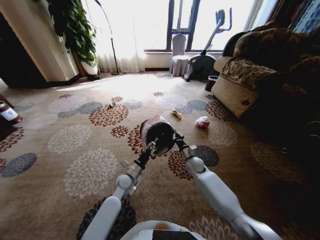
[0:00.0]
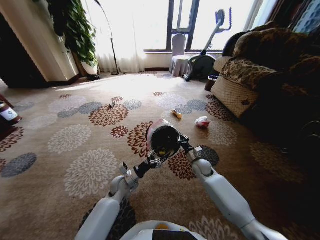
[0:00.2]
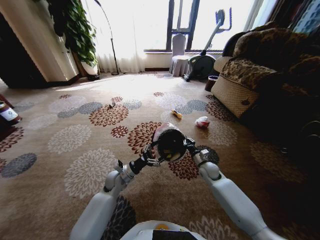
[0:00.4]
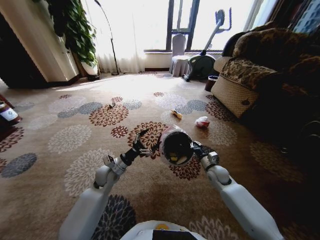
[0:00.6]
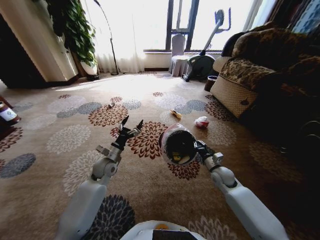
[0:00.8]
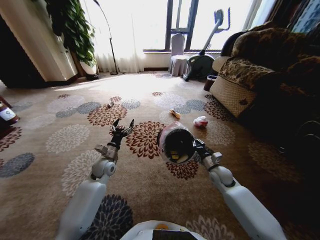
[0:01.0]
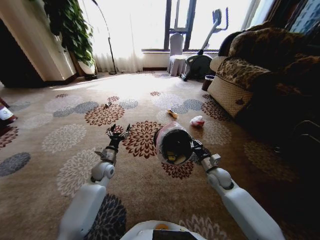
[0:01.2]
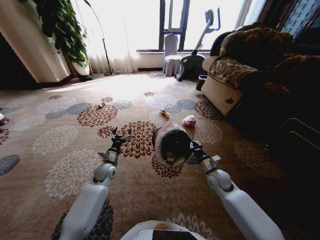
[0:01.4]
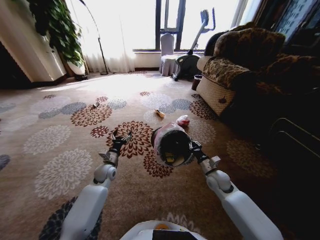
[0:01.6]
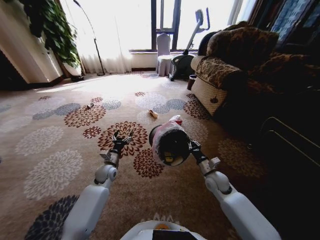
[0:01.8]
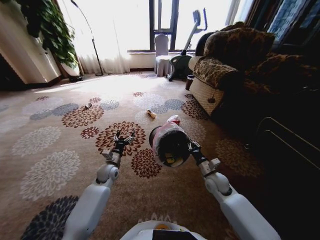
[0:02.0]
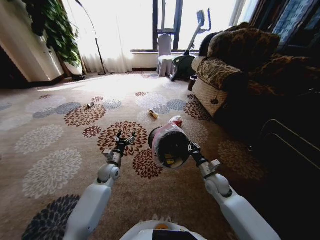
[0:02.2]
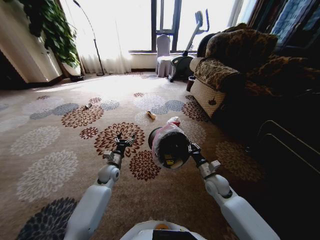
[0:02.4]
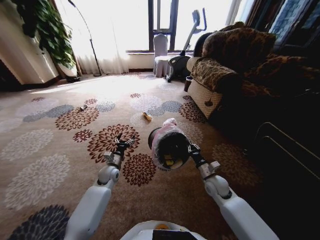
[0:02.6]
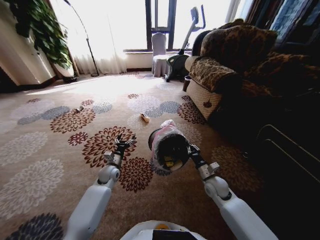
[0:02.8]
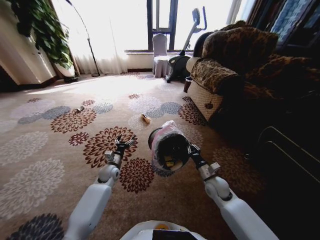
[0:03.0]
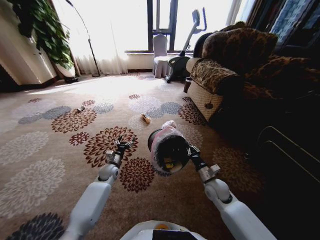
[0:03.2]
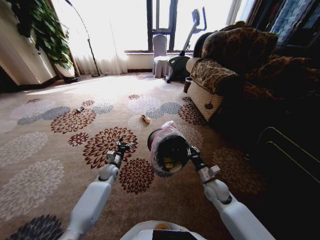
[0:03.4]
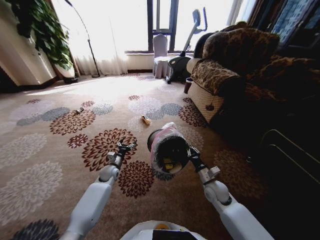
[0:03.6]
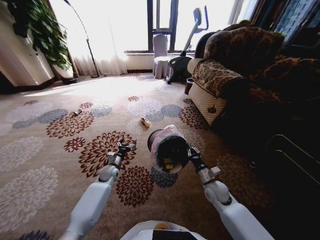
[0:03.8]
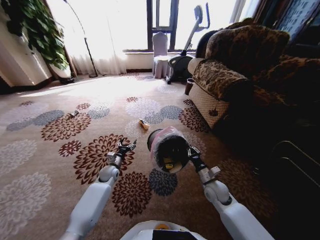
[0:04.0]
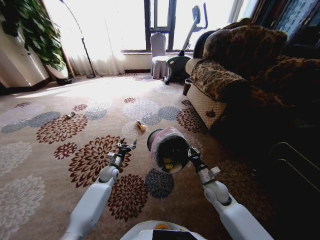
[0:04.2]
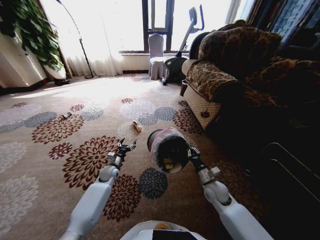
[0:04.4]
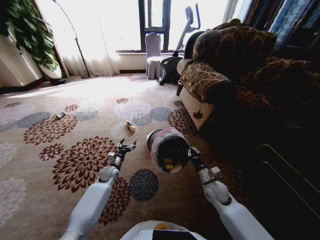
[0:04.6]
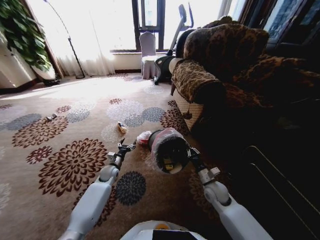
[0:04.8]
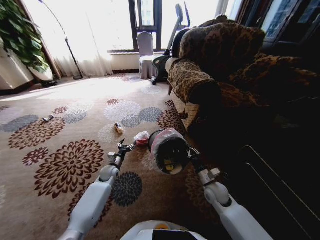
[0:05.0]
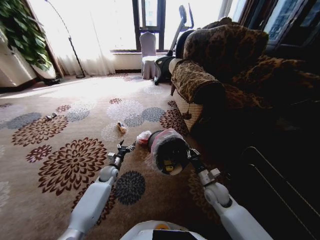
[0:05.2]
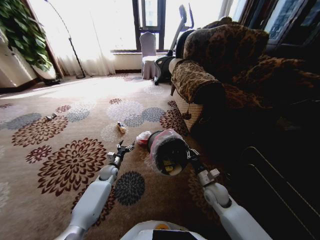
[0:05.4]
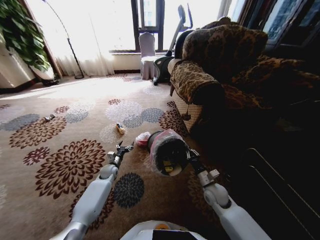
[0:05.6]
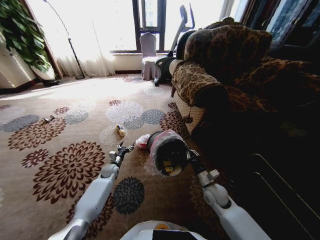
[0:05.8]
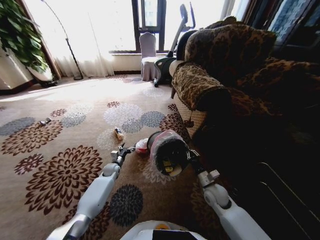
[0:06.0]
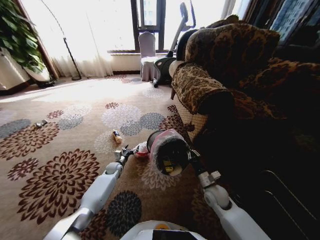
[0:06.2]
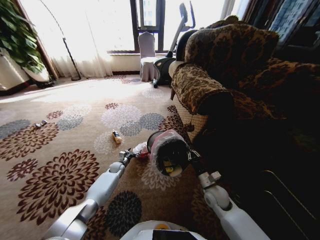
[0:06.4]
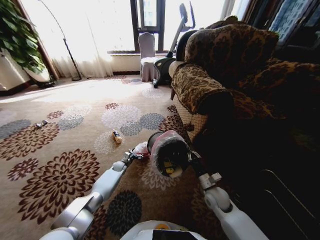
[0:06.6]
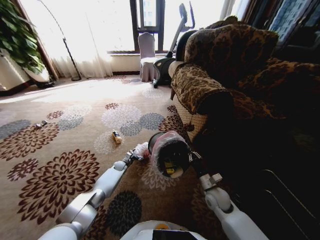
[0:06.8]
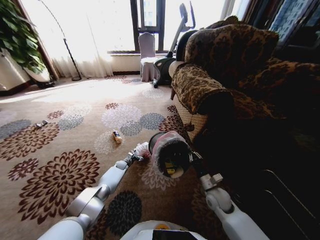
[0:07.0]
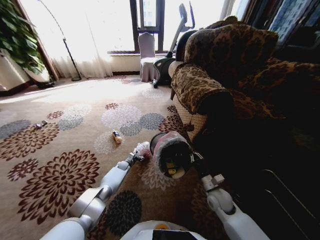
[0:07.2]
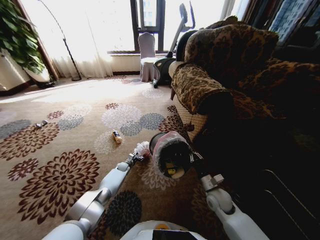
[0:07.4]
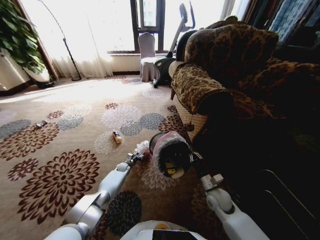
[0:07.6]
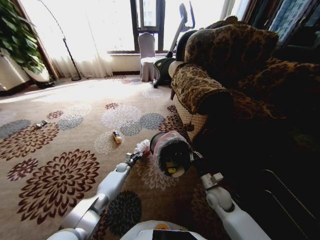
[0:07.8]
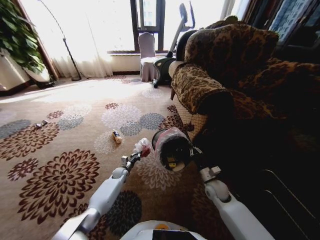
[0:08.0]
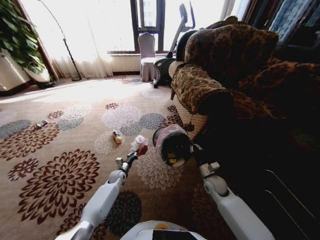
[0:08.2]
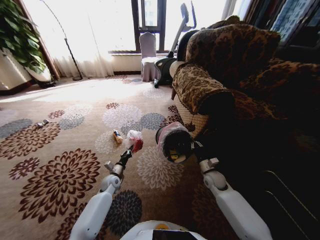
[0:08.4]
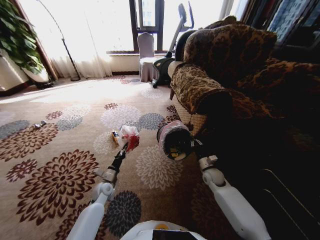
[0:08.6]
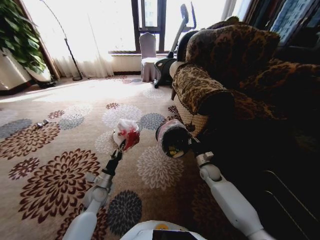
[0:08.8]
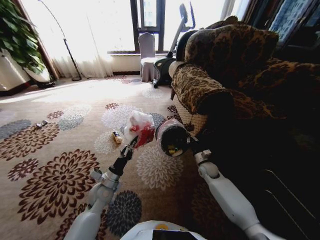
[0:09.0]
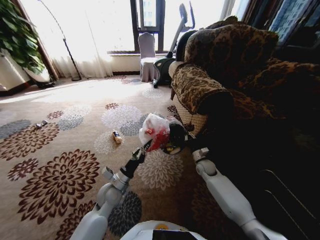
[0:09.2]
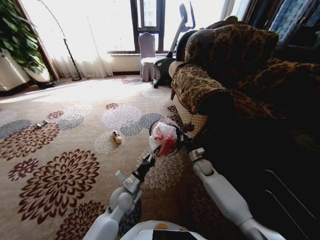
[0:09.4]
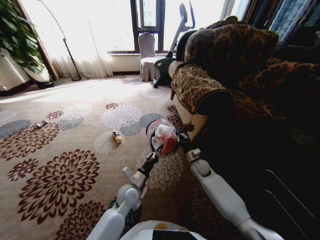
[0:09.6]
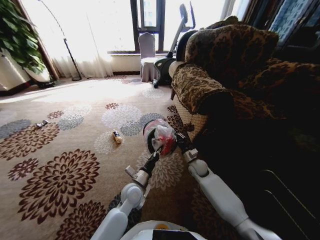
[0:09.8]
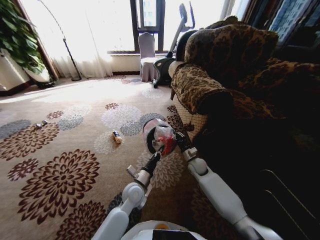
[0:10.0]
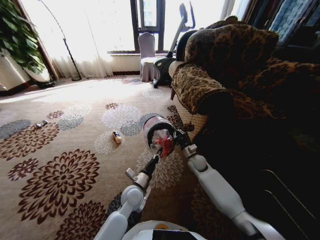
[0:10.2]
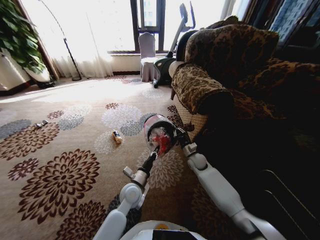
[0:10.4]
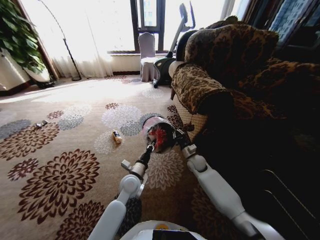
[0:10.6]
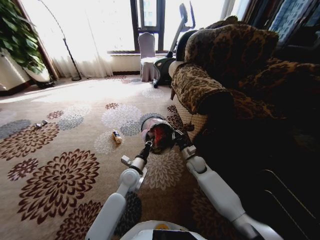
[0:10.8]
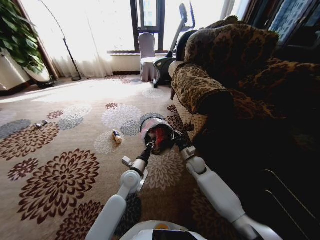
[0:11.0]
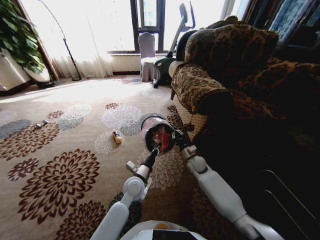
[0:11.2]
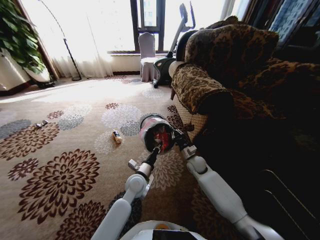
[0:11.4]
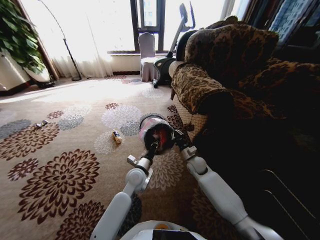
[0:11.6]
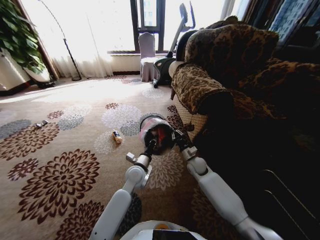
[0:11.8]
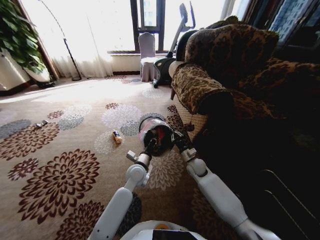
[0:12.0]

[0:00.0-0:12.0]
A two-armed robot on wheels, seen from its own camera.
Task of the whole recording: Pick up the trash from the ground and place it into the trash bin.
0:00.0 to 0:01.6: The left gripper moves to the left, approximately 10 cm, and opens up. The right gripper is displaced backward and to the right by approximately 10 cm.
0:04.4 to 0:06.0: The left gripper shifts by some 5 cm.
0:06.0 to 0:07.6: The left gripper moves downward and forward, some 10 cm, and closes.
0:07.6 to 0:09.0: The left gripper goes approximately 30 cm backward and upward, and closes its fingers; the right gripper goes roughly 15 cm forward.
0:09.0 to 0:10.4: The right gripper shifts roughly 5 cm to the left. Meanwhile the left gripper travels to the right by about 10 cm.
0:10.4 to 0:12.0: The left gripper shifts roughly 10 cm forward.

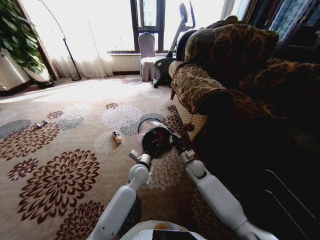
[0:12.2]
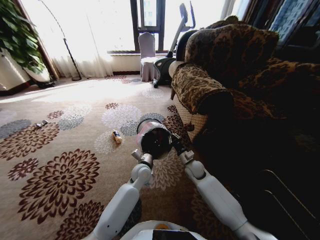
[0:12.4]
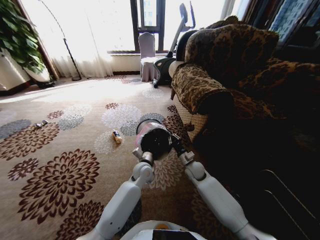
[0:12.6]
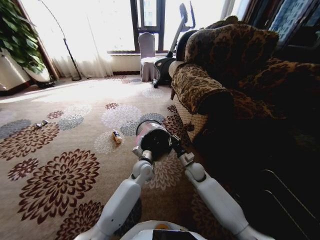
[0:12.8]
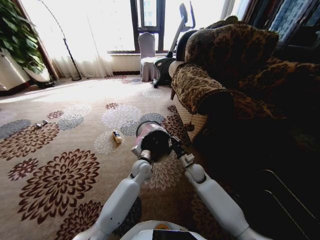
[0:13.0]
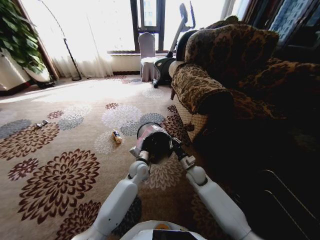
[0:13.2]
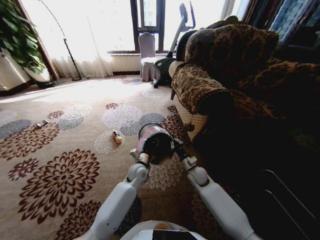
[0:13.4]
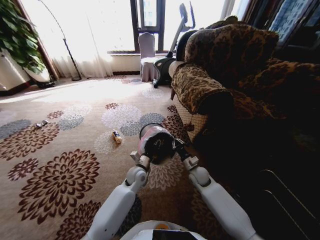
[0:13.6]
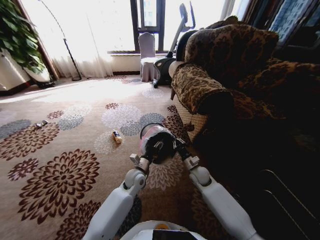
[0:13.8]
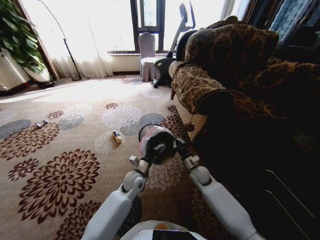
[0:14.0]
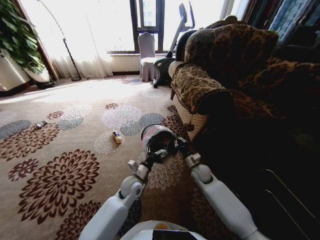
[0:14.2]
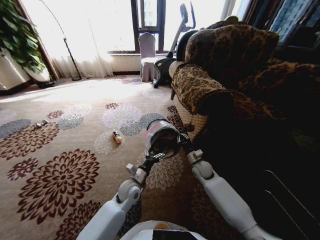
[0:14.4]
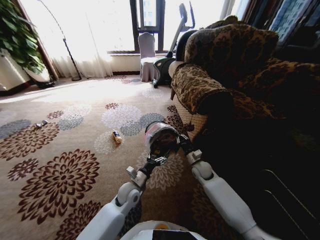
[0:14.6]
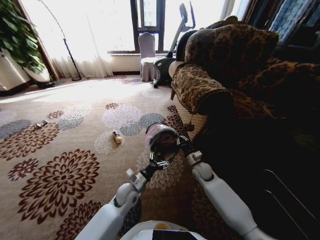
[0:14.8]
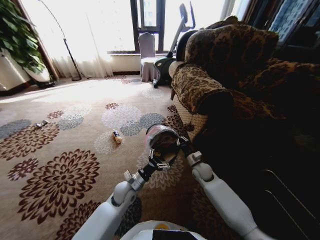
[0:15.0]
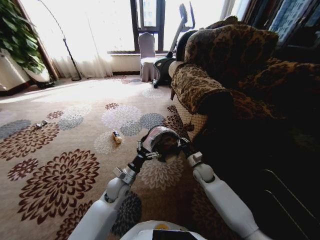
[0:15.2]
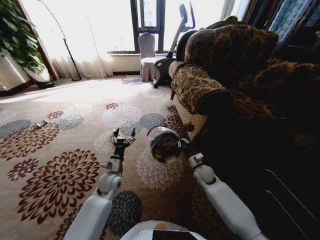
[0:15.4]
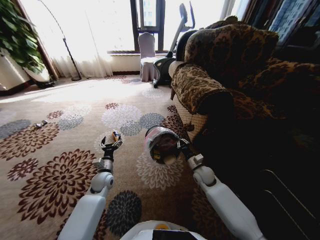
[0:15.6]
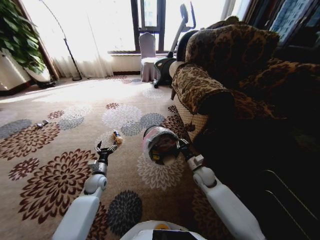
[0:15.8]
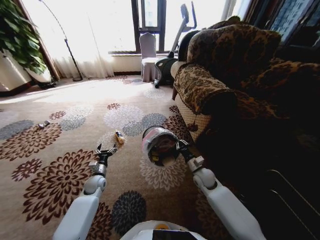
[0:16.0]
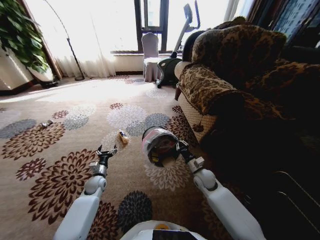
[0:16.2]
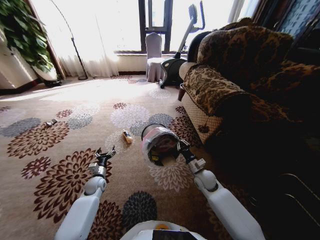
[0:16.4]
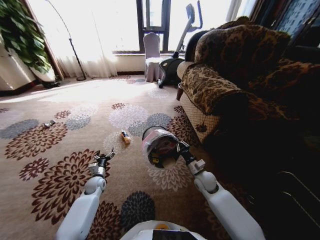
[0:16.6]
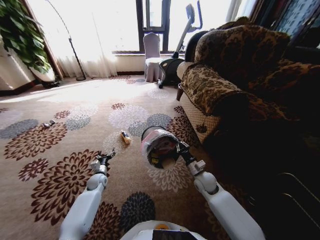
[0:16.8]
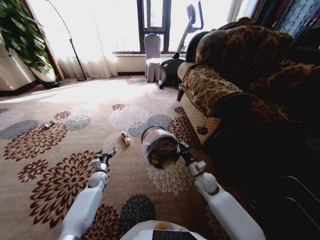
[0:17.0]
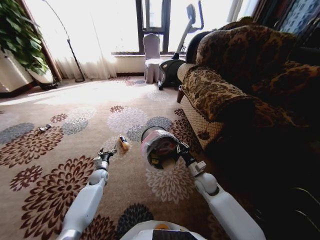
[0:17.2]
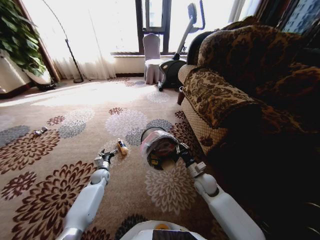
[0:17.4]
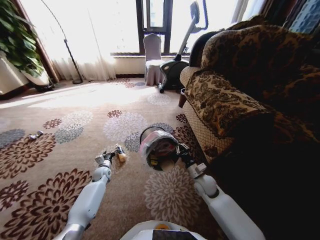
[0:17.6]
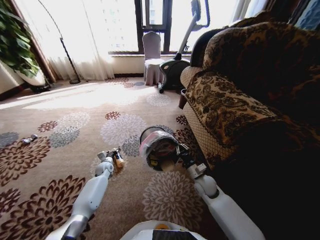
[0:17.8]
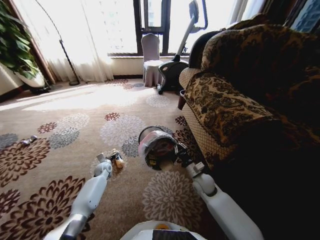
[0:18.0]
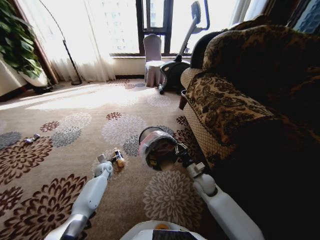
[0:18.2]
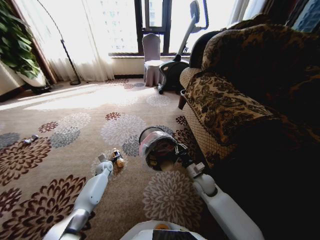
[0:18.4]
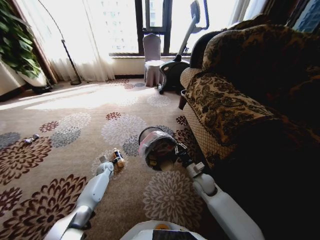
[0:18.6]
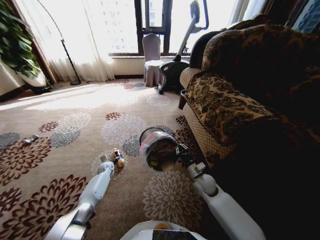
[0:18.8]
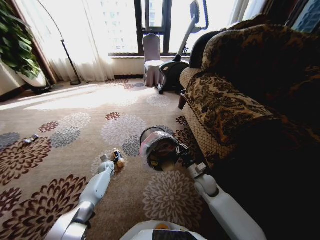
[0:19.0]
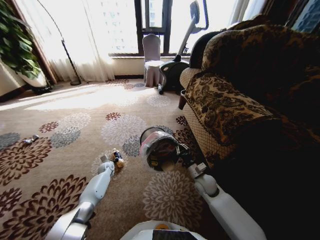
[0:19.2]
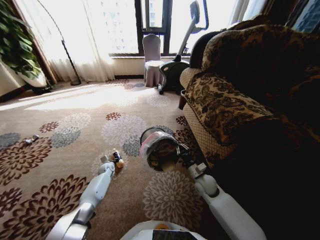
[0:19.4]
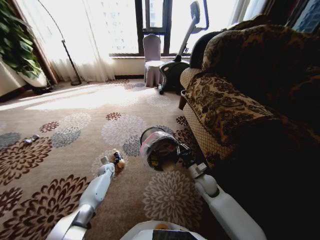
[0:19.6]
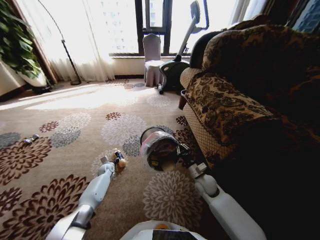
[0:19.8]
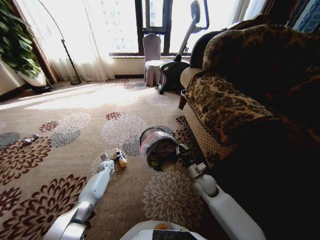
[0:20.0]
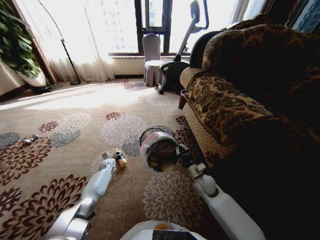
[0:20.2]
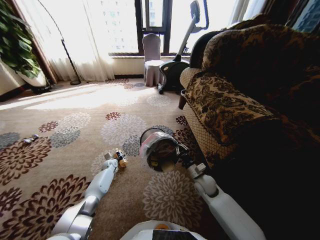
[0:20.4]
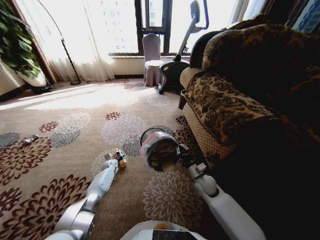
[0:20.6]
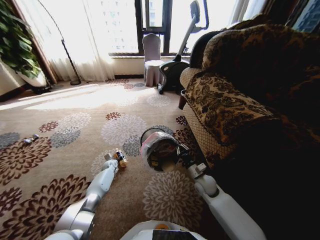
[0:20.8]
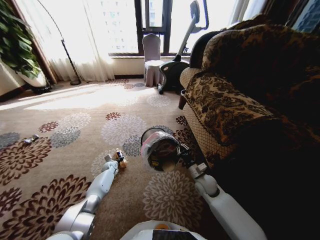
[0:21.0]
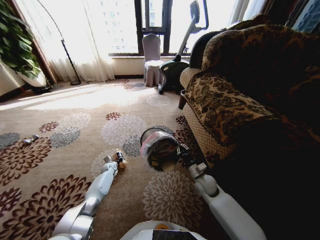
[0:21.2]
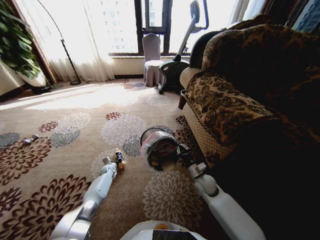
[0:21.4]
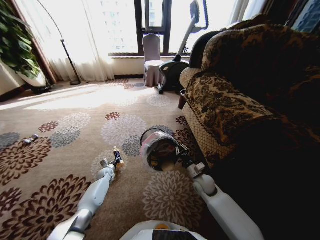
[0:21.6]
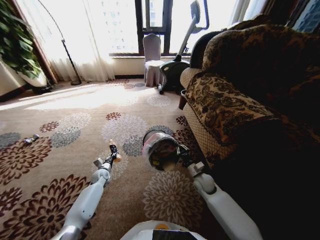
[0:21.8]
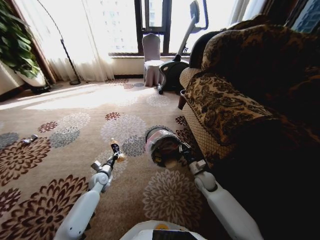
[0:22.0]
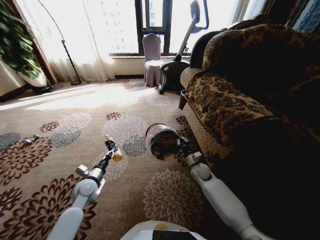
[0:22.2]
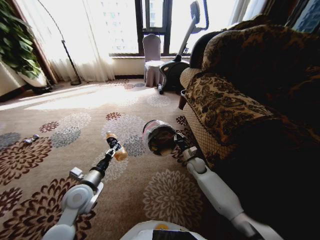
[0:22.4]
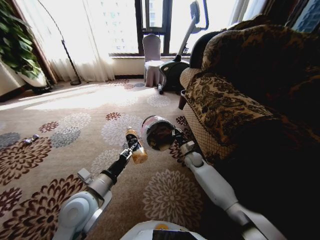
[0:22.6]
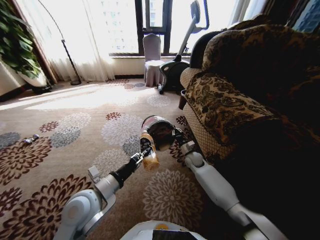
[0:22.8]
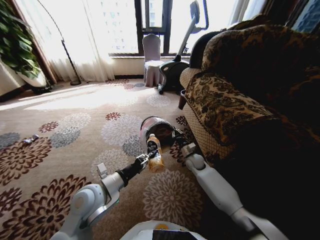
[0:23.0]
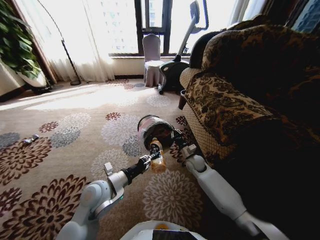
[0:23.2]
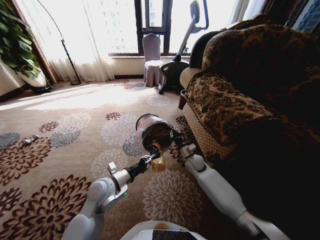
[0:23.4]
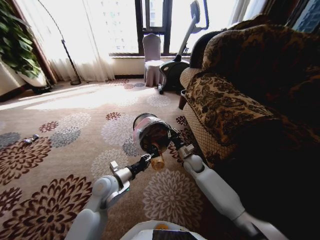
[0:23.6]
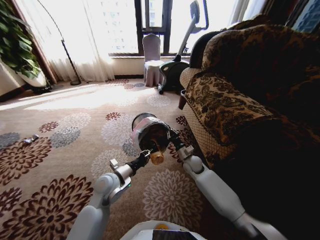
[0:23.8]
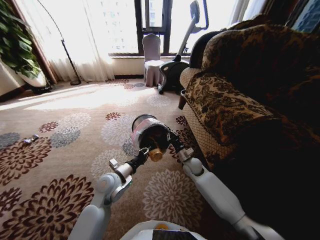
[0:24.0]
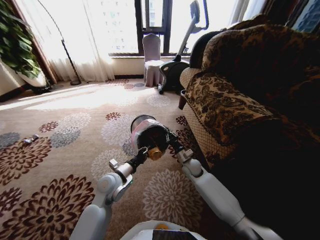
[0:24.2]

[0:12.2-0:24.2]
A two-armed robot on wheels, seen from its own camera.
Task of the whole recording: Pick up the trash from the ground and place it into the trash bin.
0:12.2 to 0:13.8: The left gripper opens its fingers.
0:13.8 to 0:15.2: The left gripper travels to the left by approximately 5 cm, and opens up.
0:15.2 to 0:16.6: The right gripper ends up about 5 cm from where it was. Meanwhile the left gripper moves to the left and downward, about 20 cm.
0:16.6 to 0:18.2: The left gripper moves forward, roughly 10 cm.
0:18.2 to 0:19.8: The left gripper closes its fingers.
0:19.8 to 0:21.2: The left gripper opens and closes again.
0:21.2 to 0:22.6: The right gripper travels forward by about 15 cm, while the left gripper shifts some 40 cm upward and backward.
0:22.6 to 0:24.2: The right gripper moves backward, about 5 cm. The left gripper travels forward and downward by roughly 10 cm.
